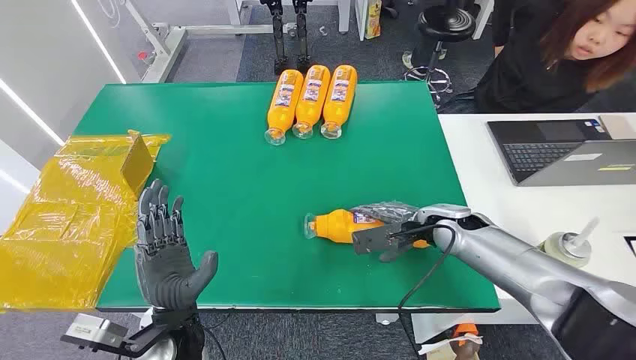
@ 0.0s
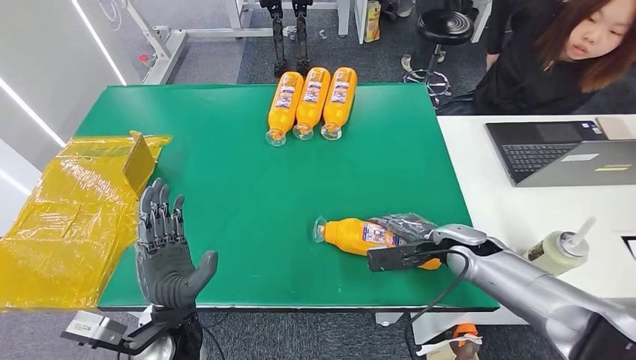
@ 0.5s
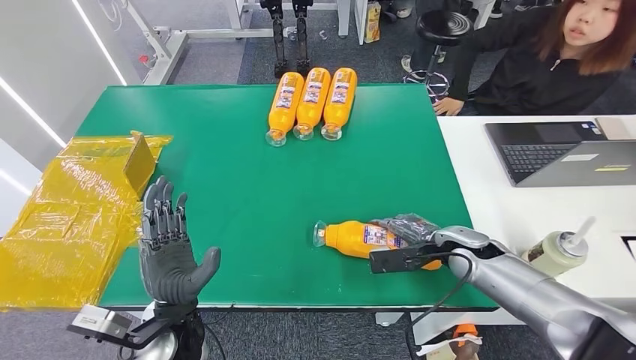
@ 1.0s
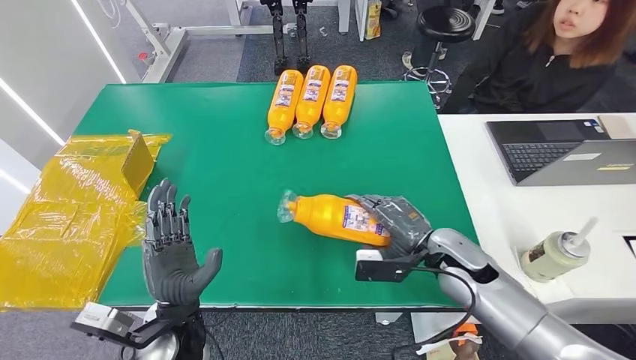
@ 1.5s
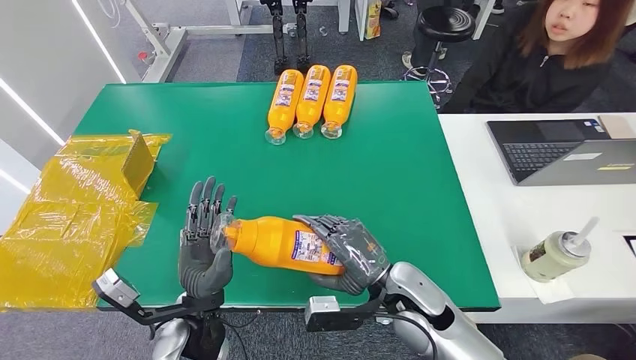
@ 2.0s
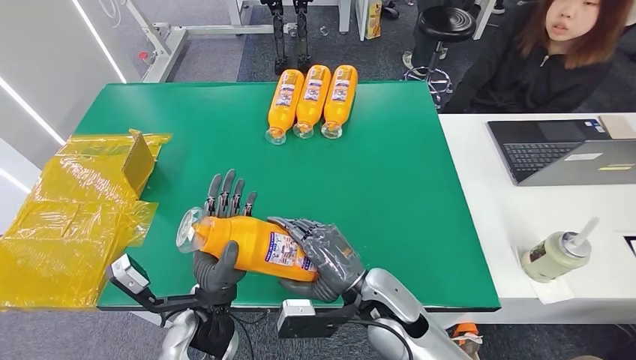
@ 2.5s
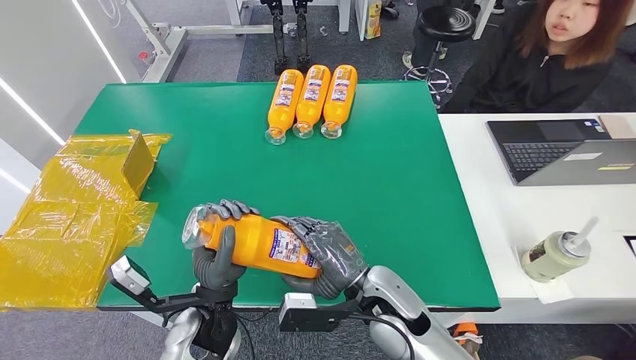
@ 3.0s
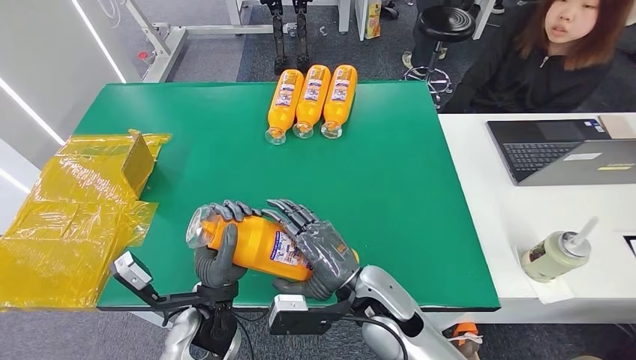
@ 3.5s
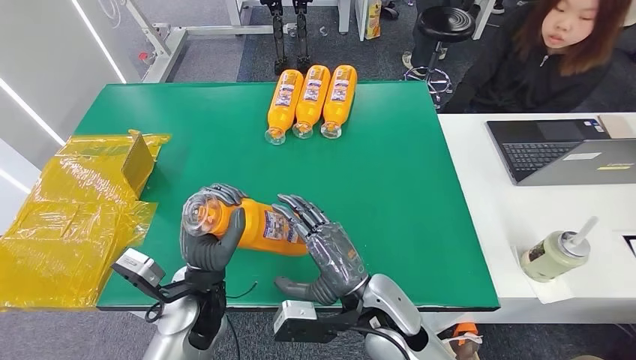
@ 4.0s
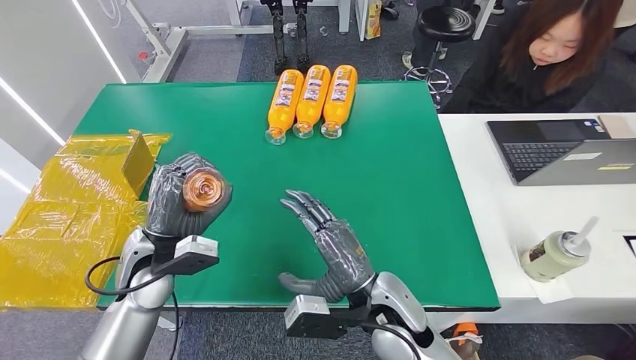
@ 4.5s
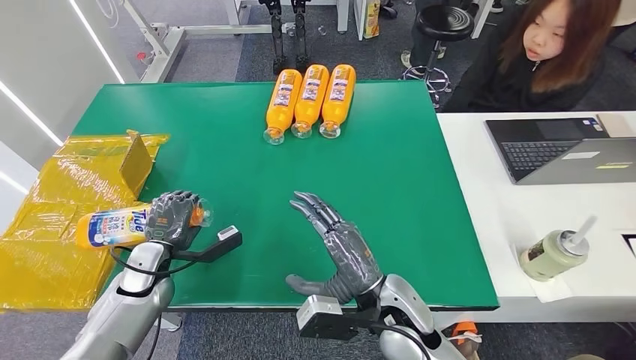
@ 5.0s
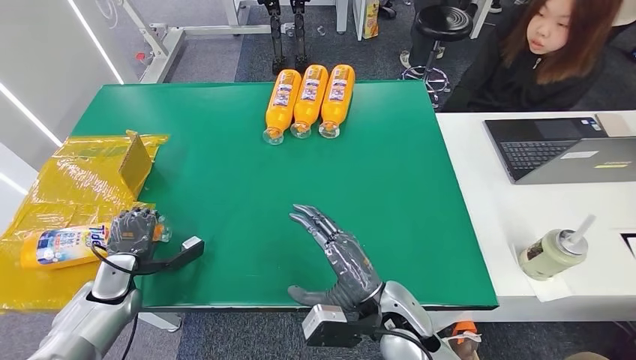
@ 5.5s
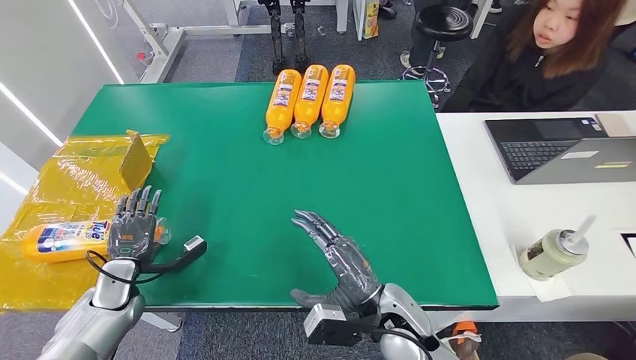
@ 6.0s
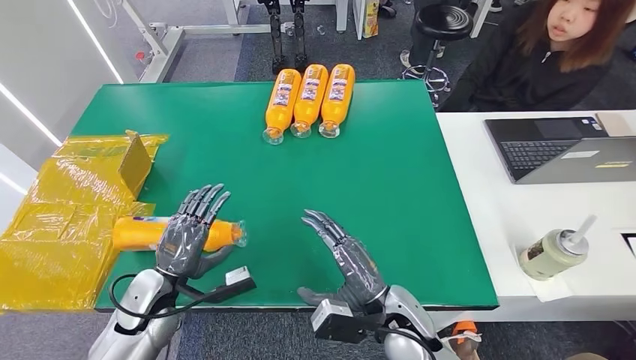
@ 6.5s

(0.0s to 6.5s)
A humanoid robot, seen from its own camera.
Step, 0.0s - 2.5s: Pick up the bottle from the table.
Step, 3.0s - 6.5s: Turn the bottle to the front side.
2.0s - 4.5s: The right hand is displaced to the left by about 5 cm; the left hand heads forward, to the left and upward, covering about 15 cm.
4.5s - 6.5s: The right hand shifts by approximately 5 cm; the left hand moves downward and backward, roughly 10 cm, and moves about 15 cm to the left and comes back.
